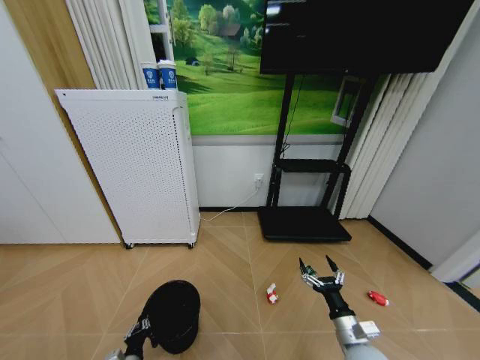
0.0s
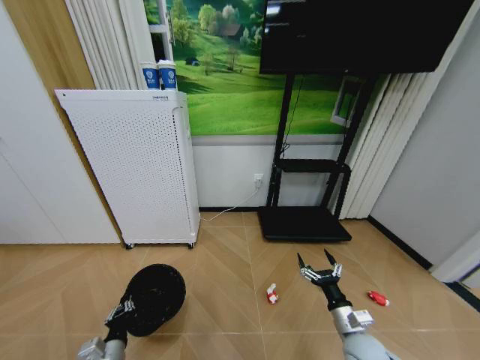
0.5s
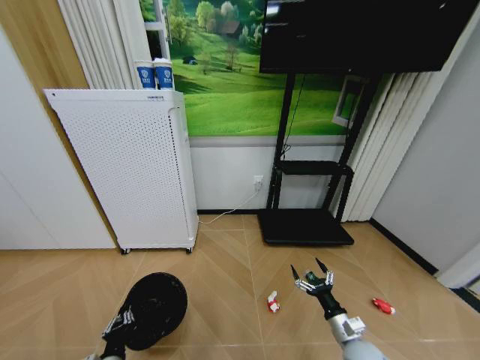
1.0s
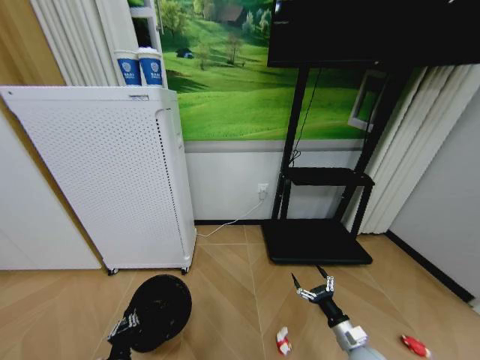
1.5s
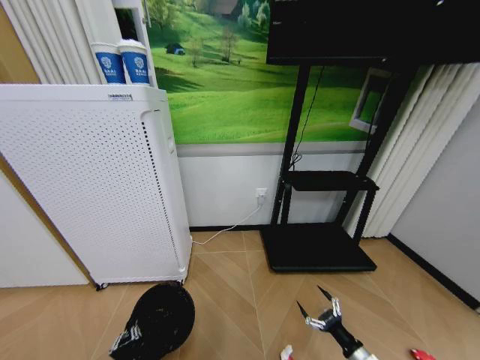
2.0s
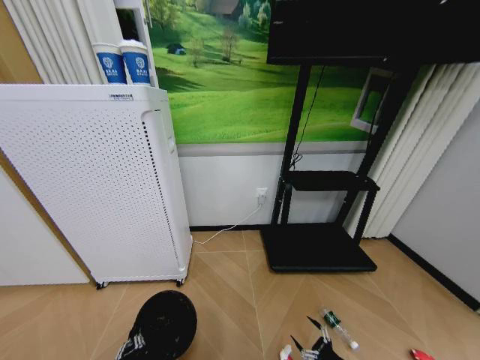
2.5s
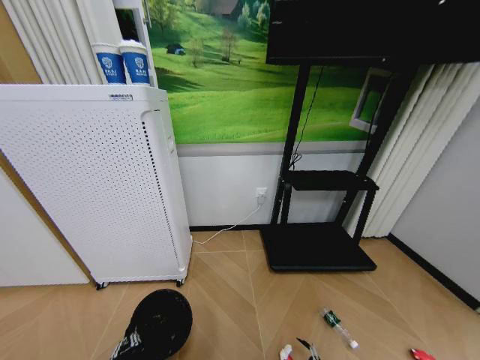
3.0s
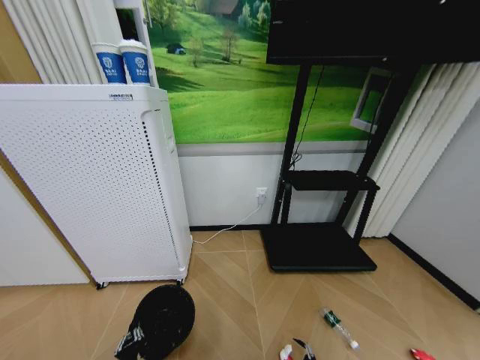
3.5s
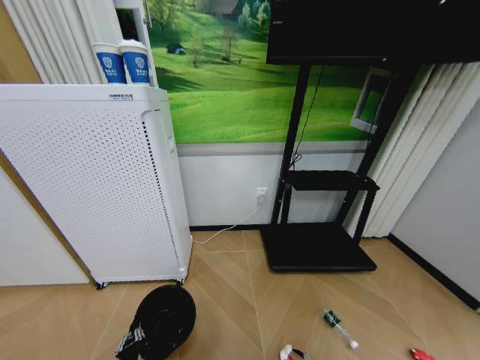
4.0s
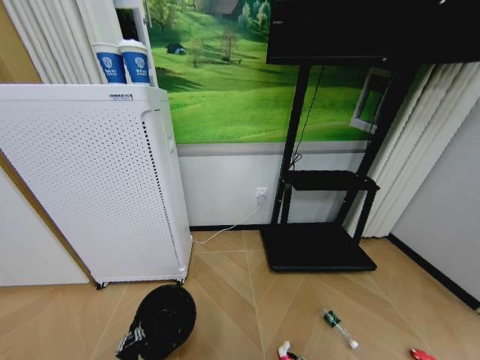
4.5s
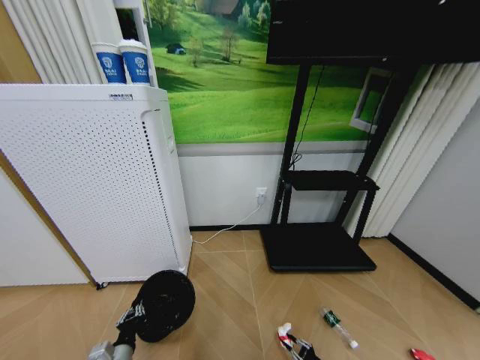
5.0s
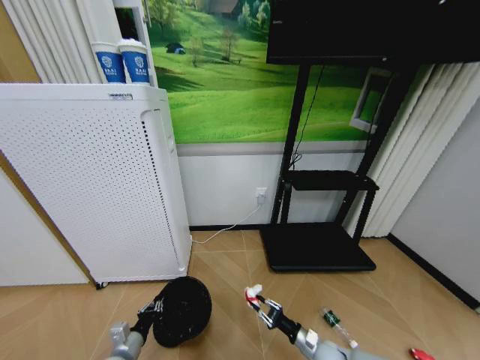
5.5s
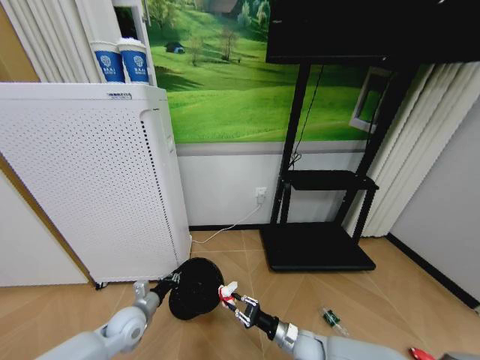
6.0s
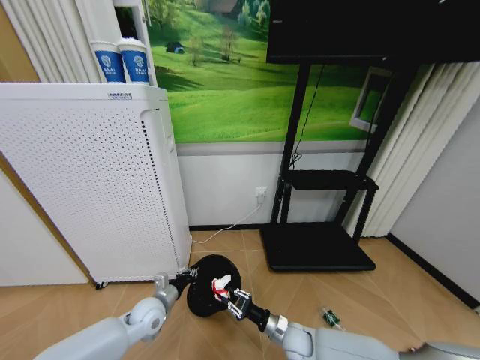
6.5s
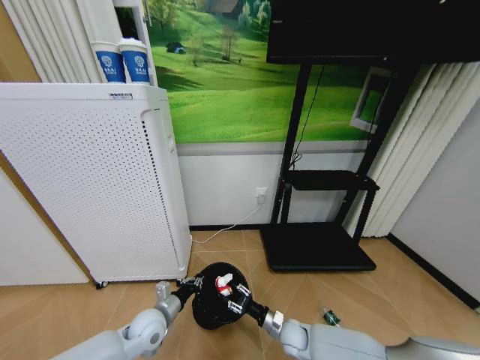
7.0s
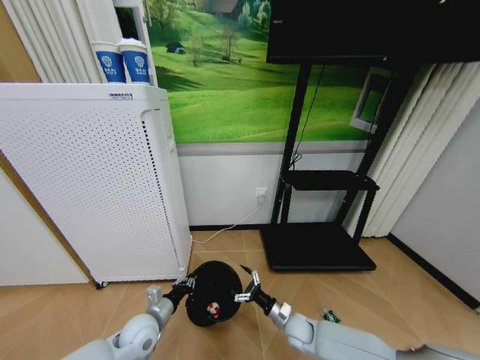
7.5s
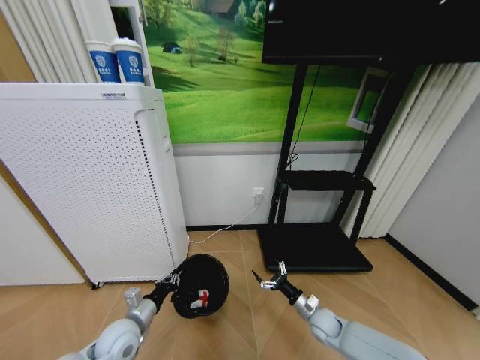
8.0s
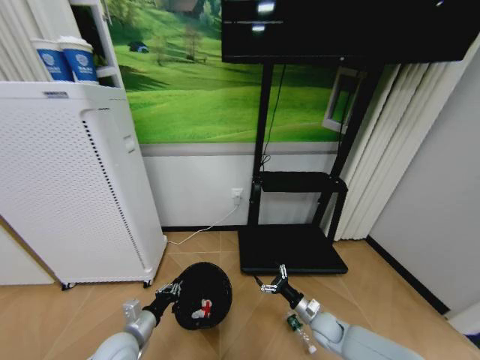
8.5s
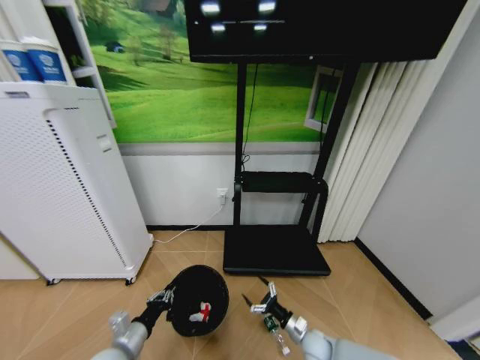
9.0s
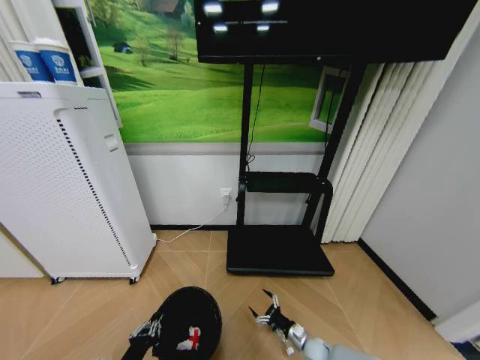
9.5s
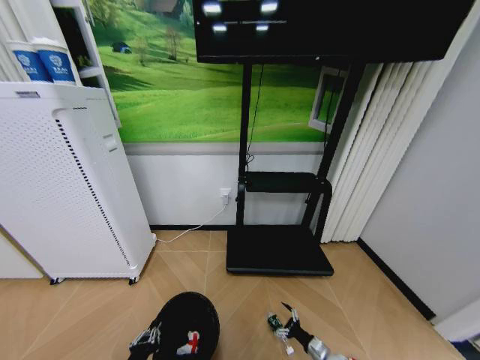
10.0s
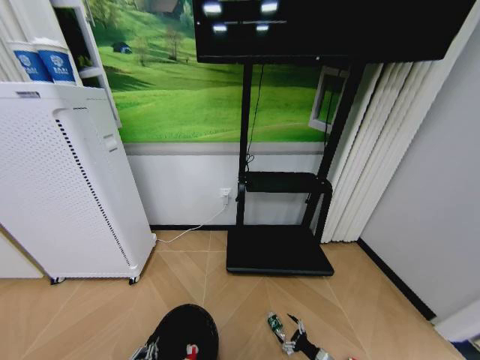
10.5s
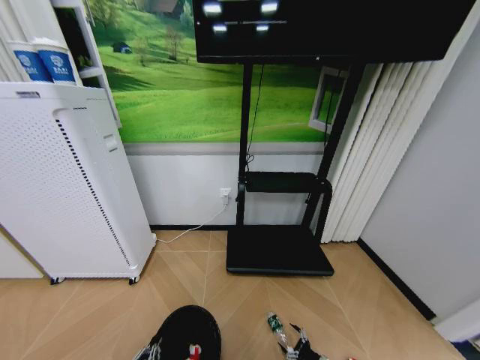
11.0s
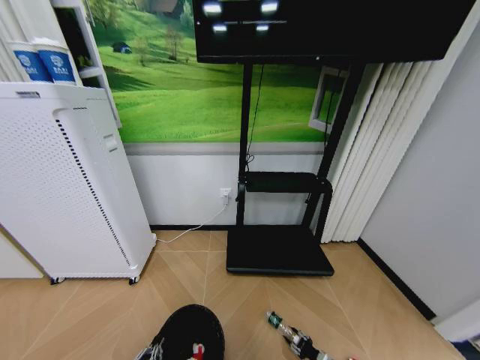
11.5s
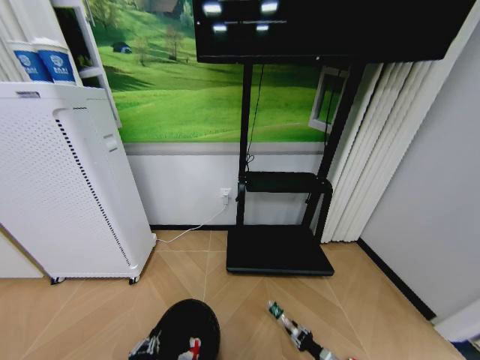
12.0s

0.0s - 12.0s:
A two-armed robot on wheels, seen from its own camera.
Task of the whole recording: Pick up the trash bin and place the garbage on the floor into it.
0.0s - 2.0s: The left gripper moves upward and backward, roughly 10 cm. Meanwhile the right gripper travels downward and to the right by about 10 cm.
2.0s - 4.0s: The right gripper heads downward, covering some 15 cm.
4.0s - 6.0s: The right gripper moves to the left, upward and forward, some 25 cm, and closes up; the left gripper travels forward and upward by some 20 cm.
6.0s - 8.0s: The right gripper travels to the right and forward by roughly 10 cm, and opens. The left gripper shifts by approximately 5 cm.
8.0s - 10.0s: The left gripper is displaced backward by approximately 15 cm, while the right gripper travels downward and backward by about 15 cm.
10.0s - 12.0s: The right gripper moves about 5 cm, and closes.

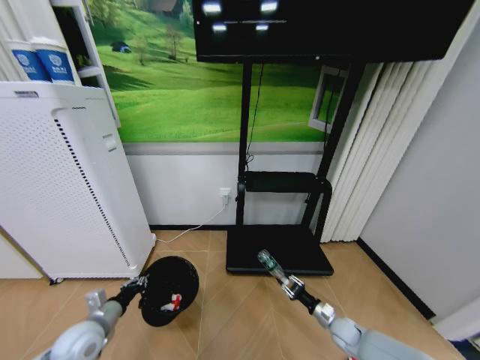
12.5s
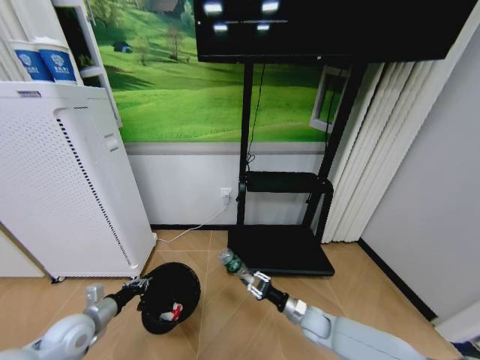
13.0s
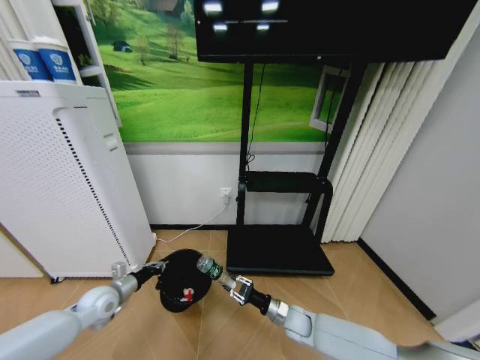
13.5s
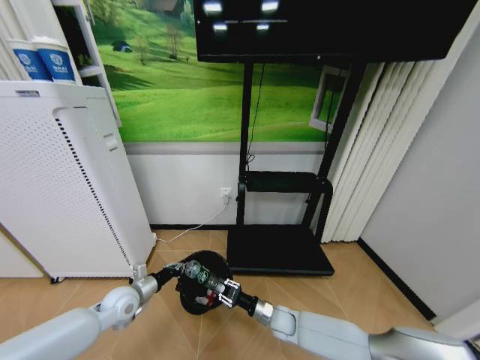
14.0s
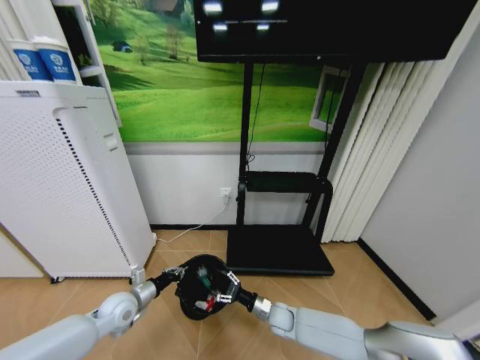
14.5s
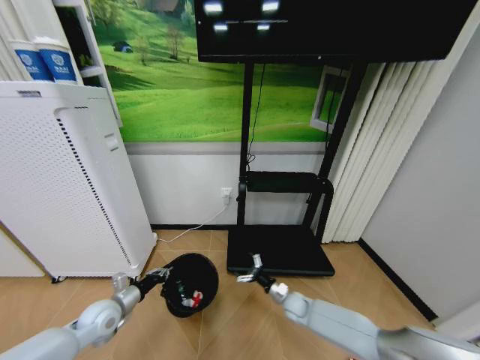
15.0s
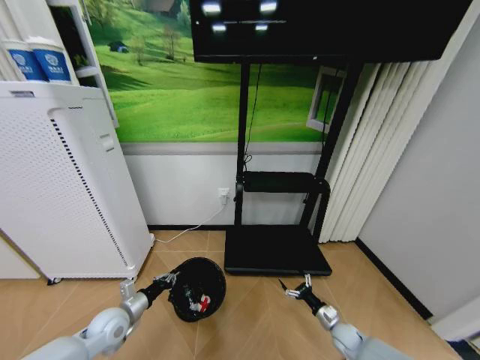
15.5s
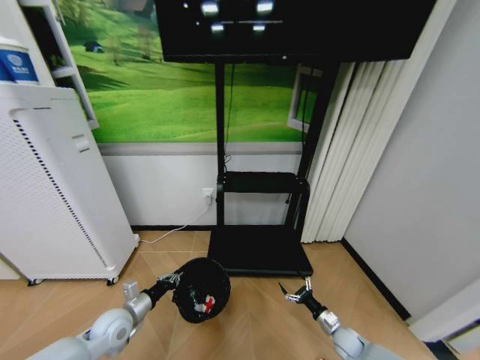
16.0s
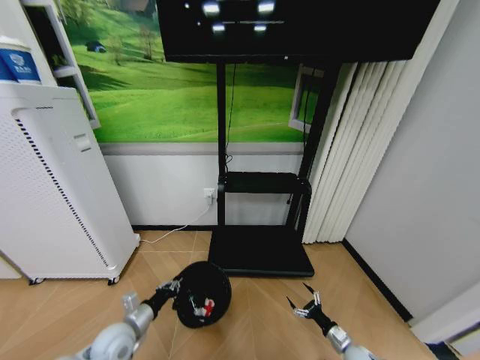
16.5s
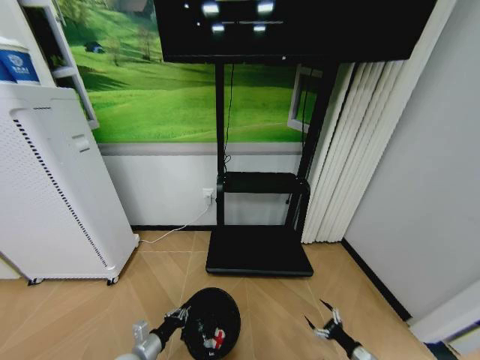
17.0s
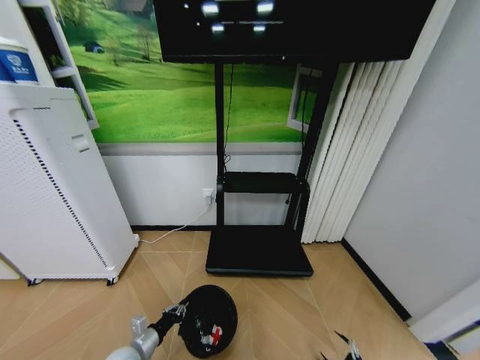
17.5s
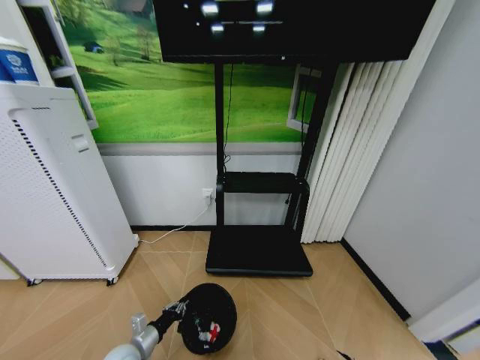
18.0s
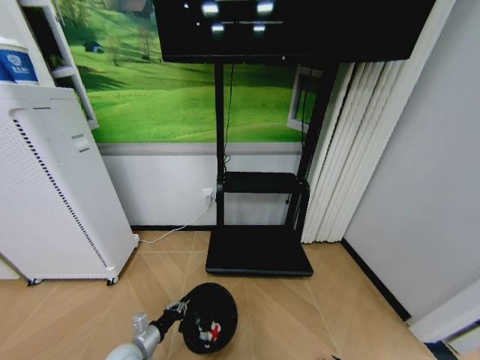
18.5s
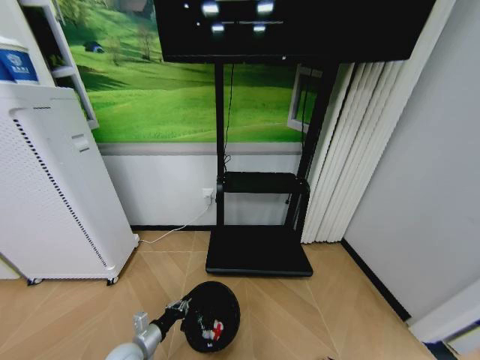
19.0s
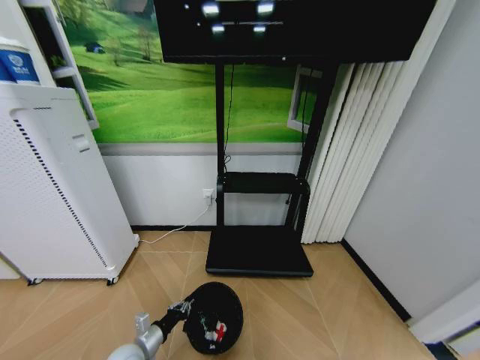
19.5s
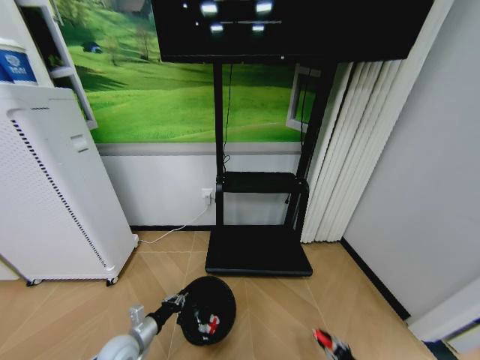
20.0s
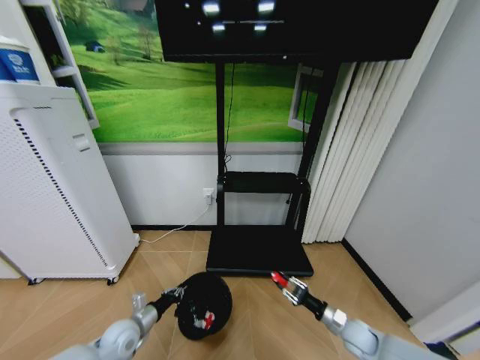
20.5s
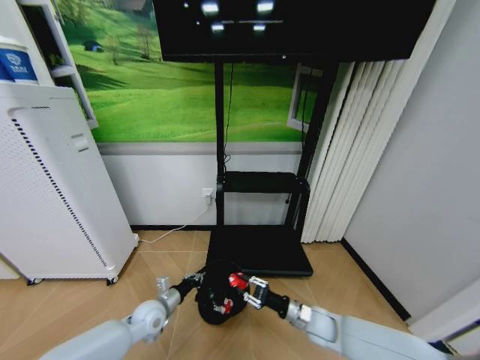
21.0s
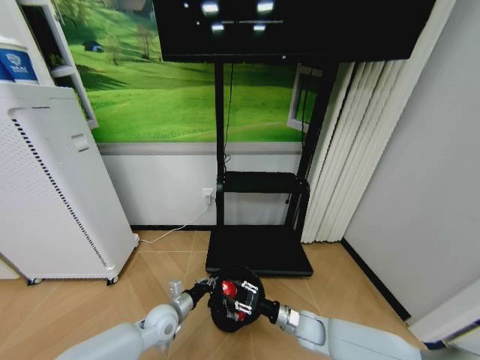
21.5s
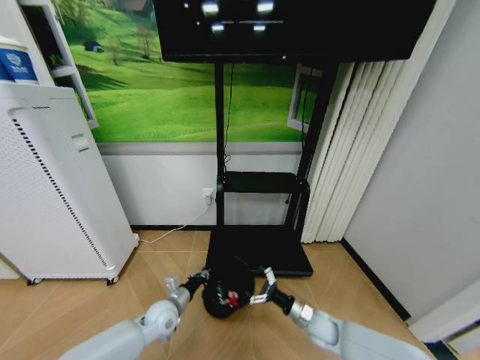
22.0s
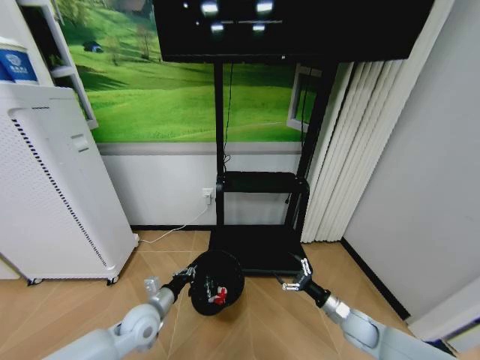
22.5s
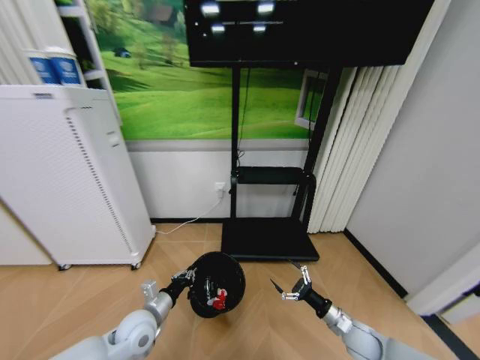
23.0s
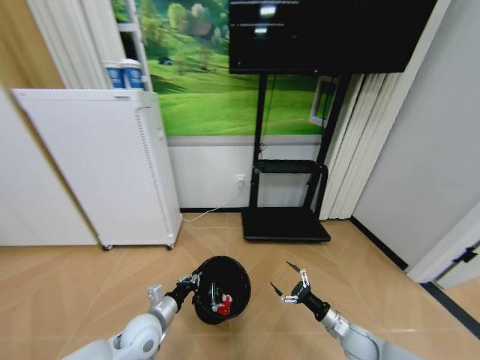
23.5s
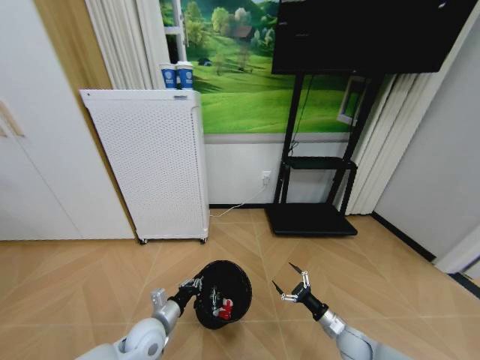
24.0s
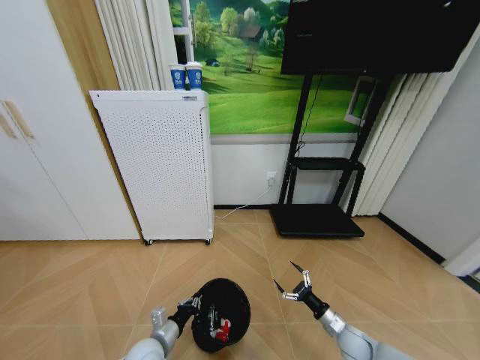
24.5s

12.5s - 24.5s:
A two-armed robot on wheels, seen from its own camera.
Task of the whole recording: Pick up the trash bin and place the garbage on the floor into it.
12.5s - 14.5s: The left gripper shifts some 10 cm forward. The right gripper heads to the left, covering some 20 cm, and opens its fingers.
14.5s - 16.5s: The right gripper is displaced to the right and backward by about 25 cm. Meanwhile the left gripper shifts roughly 5 cm backward.
16.5s - 18.5s: The left gripper goes about 5 cm downward, while the right gripper heads backward and to the right, covering some 20 cm.
18.5s - 20.5s: The right gripper shifts approximately 30 cm forward, upward and to the left, and closes. The left gripper moves forward, approximately 5 cm.
20.5s - 22.5s: The right gripper goes to the left and returns, approximately 15 cm each way, and opens up, while the left gripper is displaced to the right and upward by approximately 10 cm.
22.5s - 24.5s: The left gripper heads backward and downward, covering about 10 cm. The right gripper travels downward by approximately 5 cm.

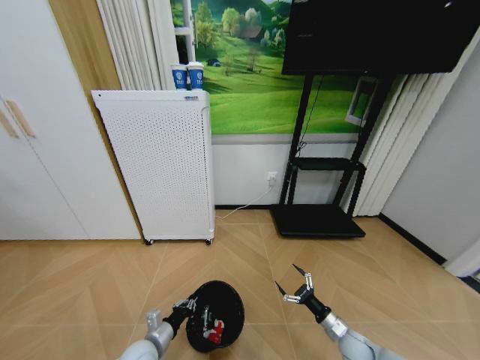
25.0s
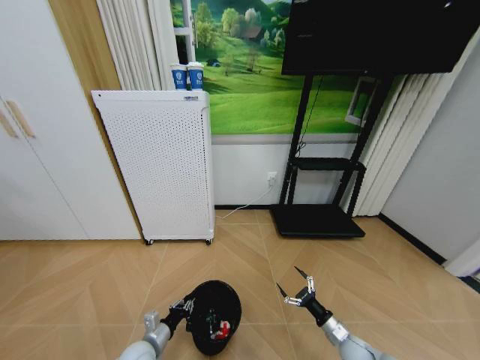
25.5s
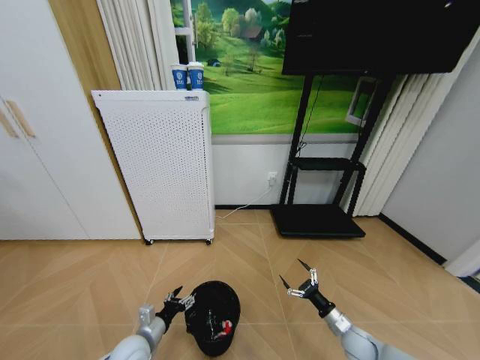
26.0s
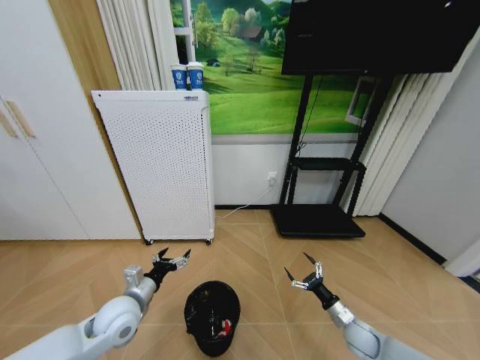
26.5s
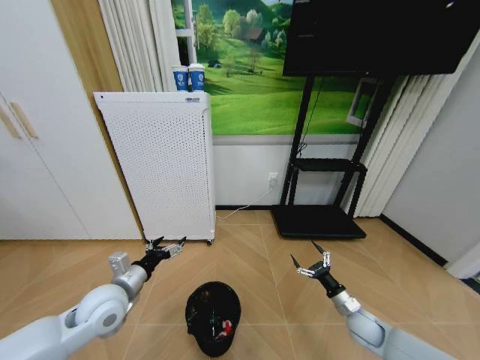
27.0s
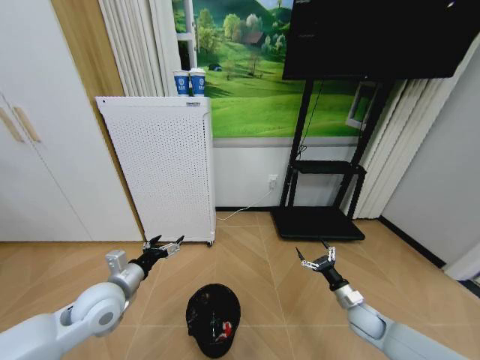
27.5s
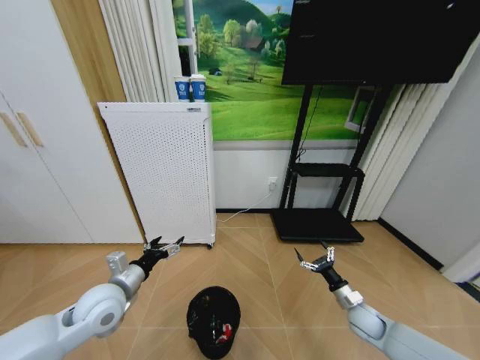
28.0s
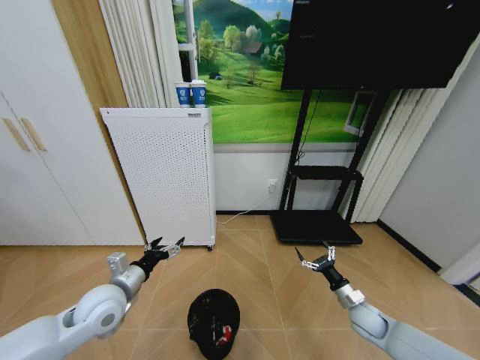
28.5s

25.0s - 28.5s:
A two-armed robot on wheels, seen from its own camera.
Task of the whole recording: Pick up the trash bin and place the garbage on the floor into it.
25.0s - 27.0s: The right gripper shifts some 5 cm upward. The left gripper goes roughly 20 cm upward, and opens up.
27.0s - 28.5s: The grippers move only a little.
